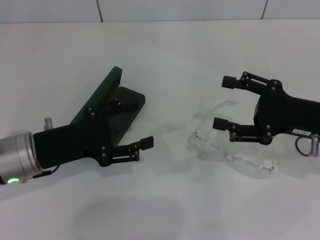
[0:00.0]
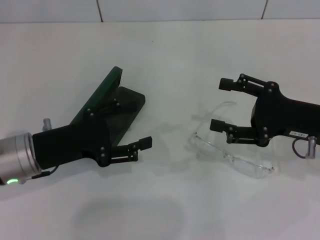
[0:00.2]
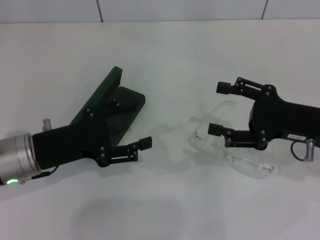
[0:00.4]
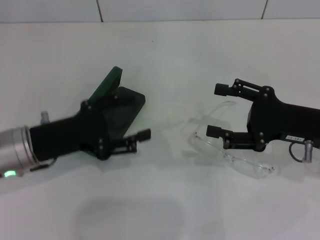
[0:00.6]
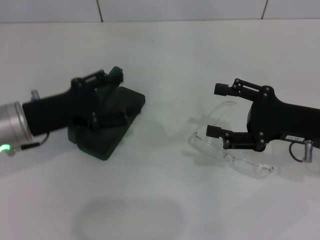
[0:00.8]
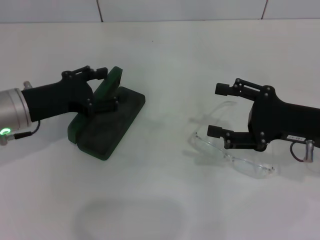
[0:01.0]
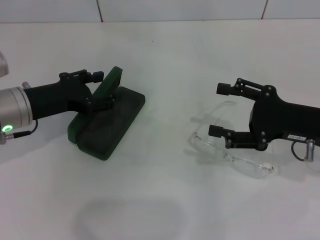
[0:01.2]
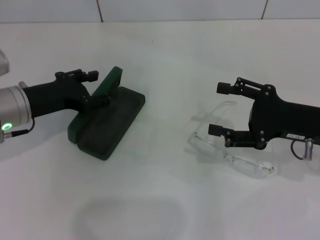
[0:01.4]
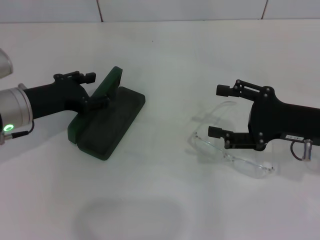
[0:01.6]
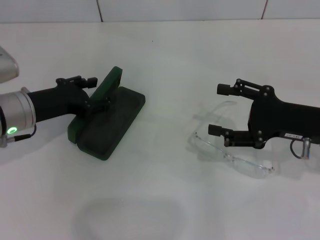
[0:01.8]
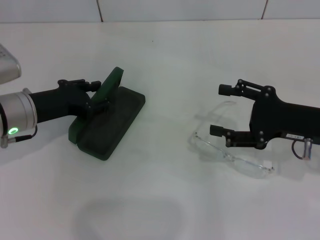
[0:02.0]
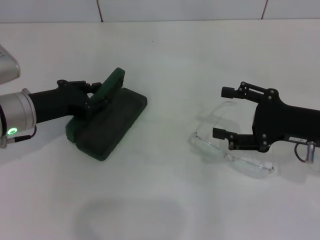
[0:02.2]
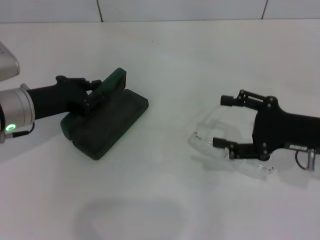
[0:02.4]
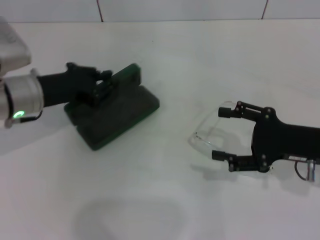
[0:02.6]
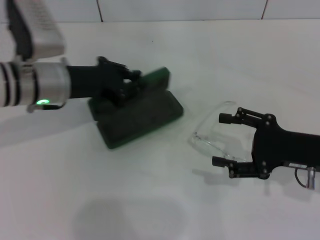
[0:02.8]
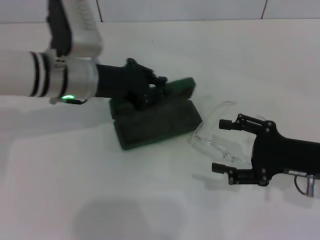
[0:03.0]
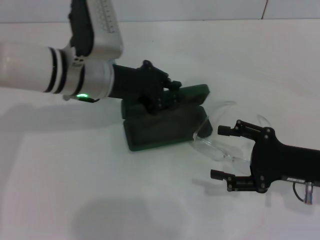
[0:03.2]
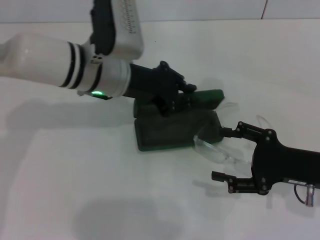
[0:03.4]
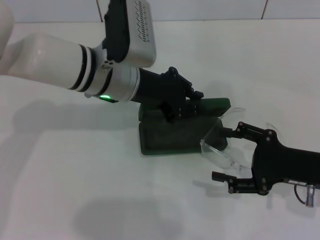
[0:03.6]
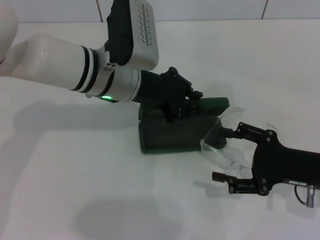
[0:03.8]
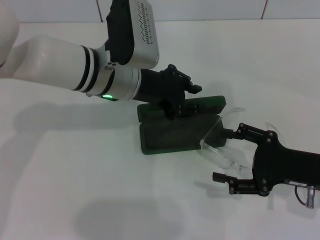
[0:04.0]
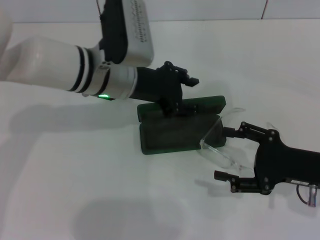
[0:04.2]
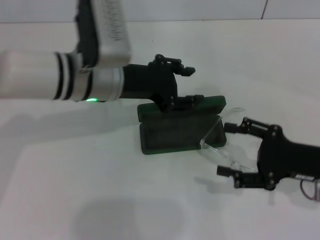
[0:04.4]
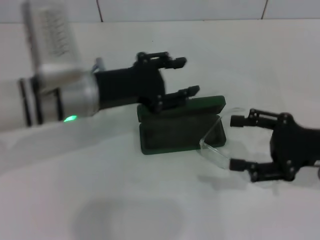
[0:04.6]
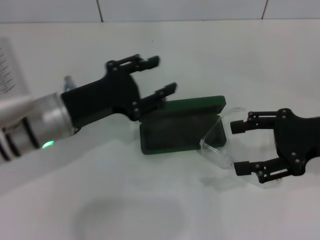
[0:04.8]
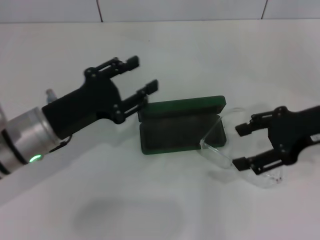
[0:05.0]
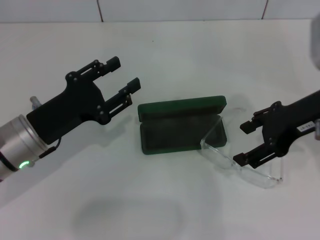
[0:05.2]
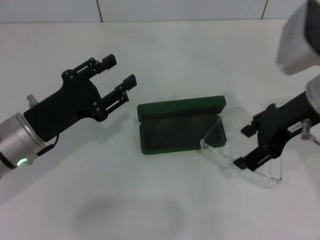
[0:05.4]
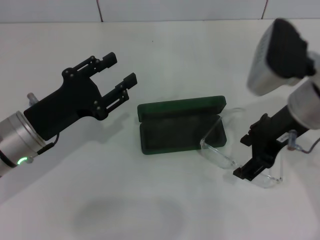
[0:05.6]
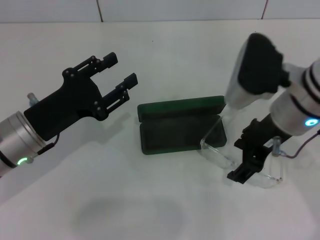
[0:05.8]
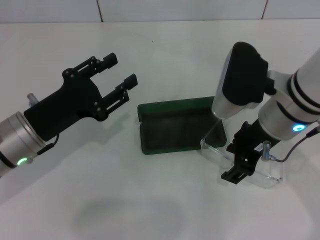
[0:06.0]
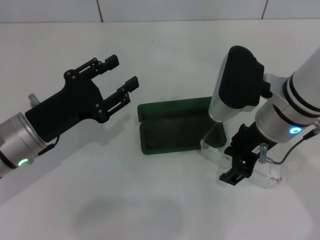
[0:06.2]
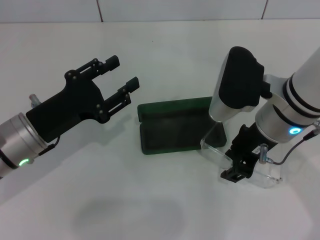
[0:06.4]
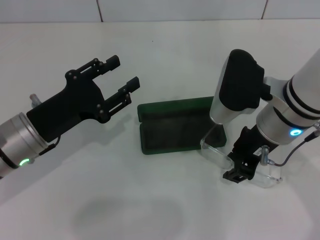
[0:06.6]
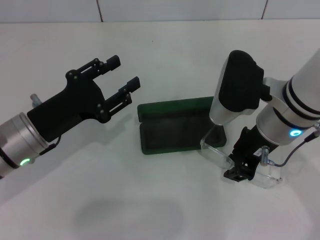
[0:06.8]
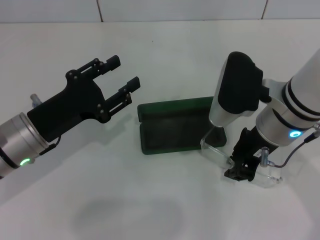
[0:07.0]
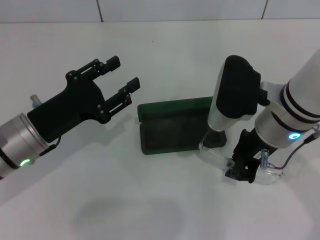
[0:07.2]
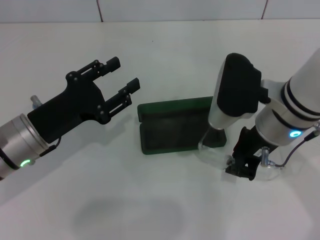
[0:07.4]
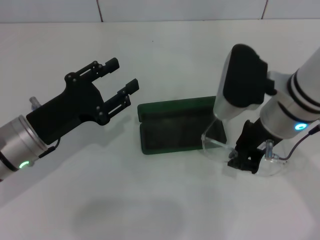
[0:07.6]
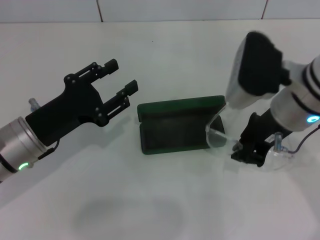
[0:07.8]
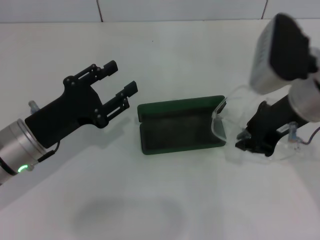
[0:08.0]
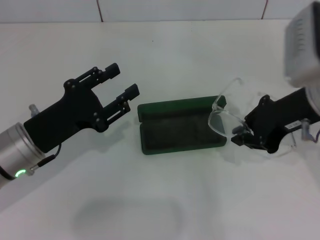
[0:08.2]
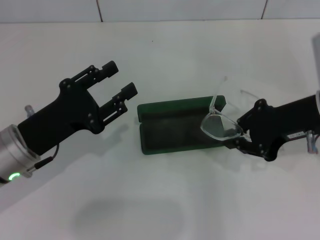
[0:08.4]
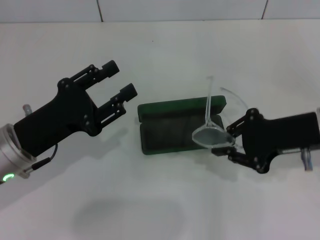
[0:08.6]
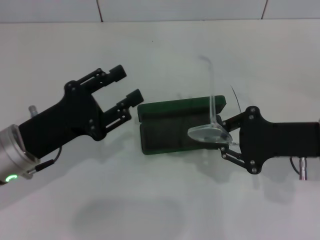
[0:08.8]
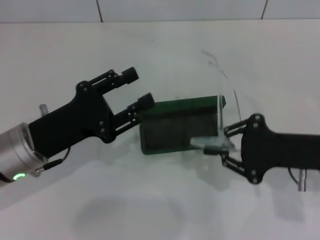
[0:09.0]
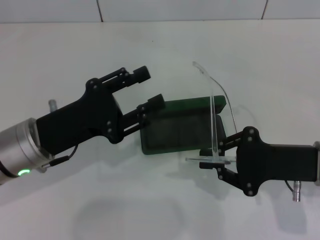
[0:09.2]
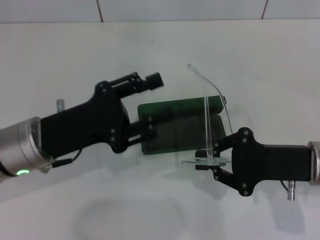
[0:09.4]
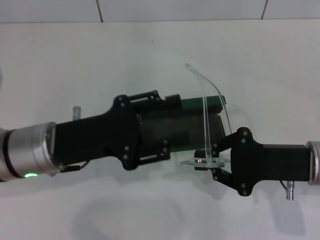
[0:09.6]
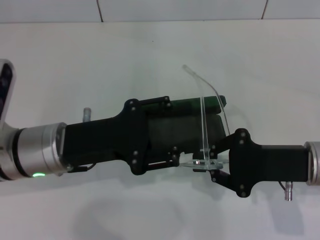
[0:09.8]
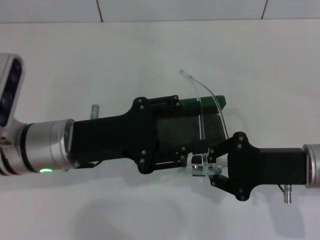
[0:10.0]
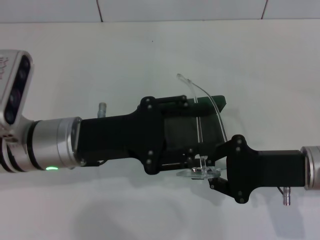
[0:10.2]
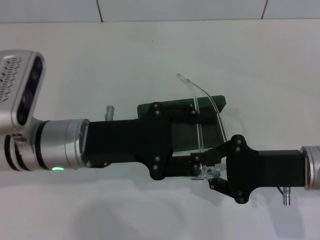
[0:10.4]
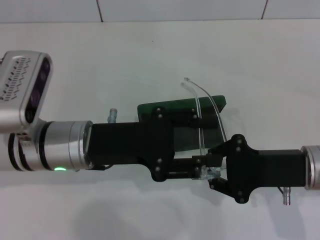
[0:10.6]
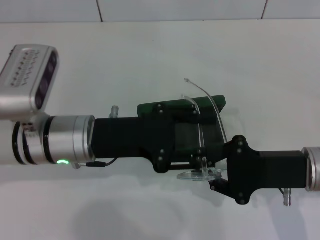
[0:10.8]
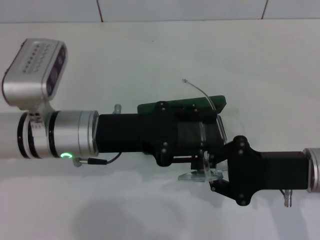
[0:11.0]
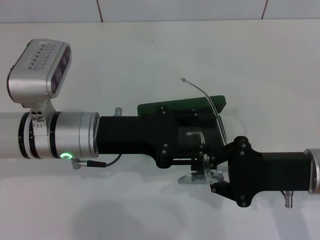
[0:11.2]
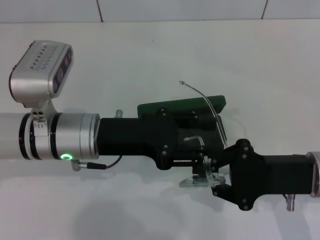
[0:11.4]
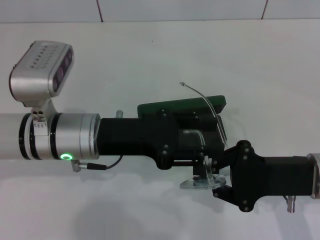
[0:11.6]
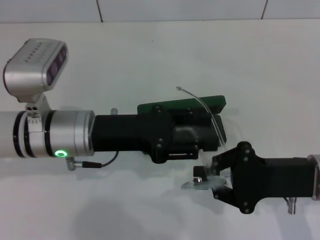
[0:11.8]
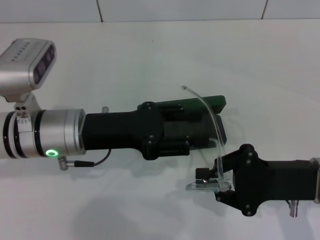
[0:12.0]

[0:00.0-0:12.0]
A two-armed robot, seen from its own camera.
Step, 0:00.0 to 0:01.8: Grab the glasses case with your left hand.
Step, 0:02.0 to 0:03.8: Place the glasses case in the center of the table with your left hand.
Step, 0:04.0 to 0:06.8: Grab the eyeglass frame with your right hand.
0:00.0 to 0:01.6: The left gripper shifts roughly 5 cm forward.
0:01.6 to 0:03.0: The left gripper is displaced to the right by roughly 10 cm, and closes up.
0:03.0 to 0:04.4: The left gripper opens its fingers.
0:04.4 to 0:06.0: The left gripper is displaced to the left, backward and downward by approximately 15 cm, while the right gripper goes some 15 cm to the left, upward and forward.
0:06.0 to 0:07.6: The right gripper closes up.
0:07.6 to 0:09.0: The right gripper goes approximately 15 cm to the right, downward and backward.
0:09.0 to 0:10.4: The left gripper goes some 5 cm to the right.

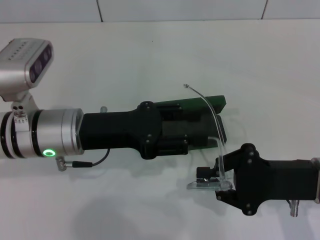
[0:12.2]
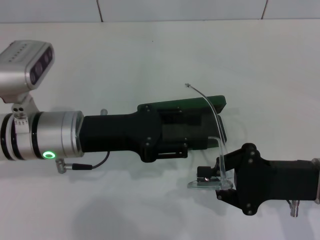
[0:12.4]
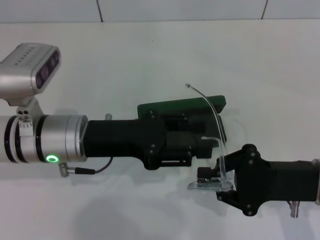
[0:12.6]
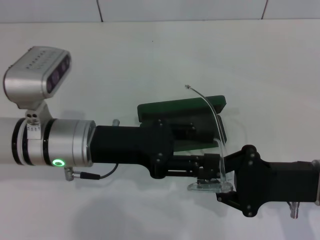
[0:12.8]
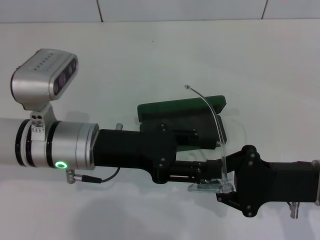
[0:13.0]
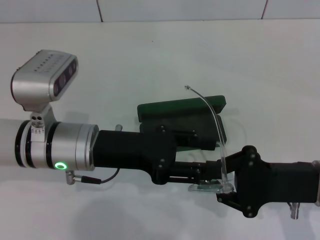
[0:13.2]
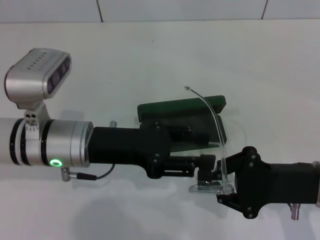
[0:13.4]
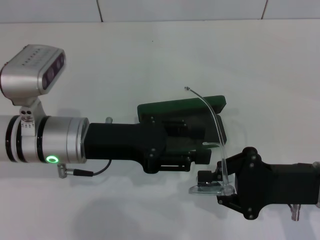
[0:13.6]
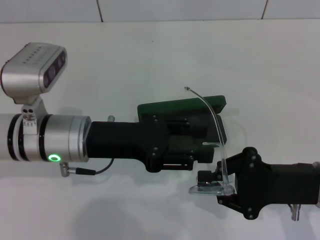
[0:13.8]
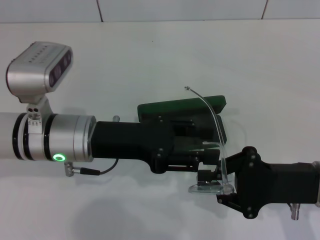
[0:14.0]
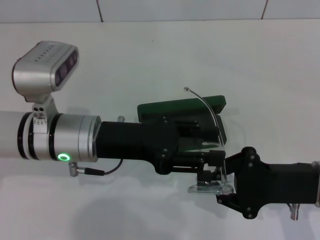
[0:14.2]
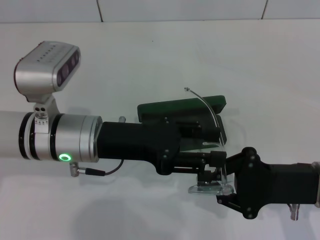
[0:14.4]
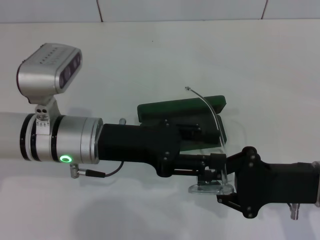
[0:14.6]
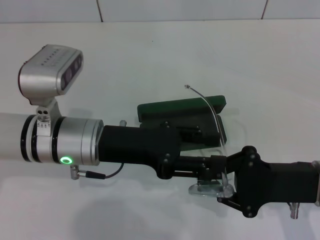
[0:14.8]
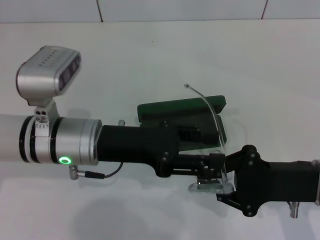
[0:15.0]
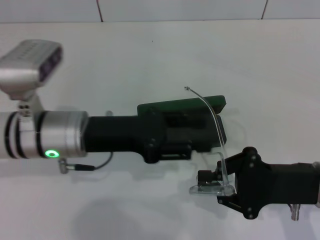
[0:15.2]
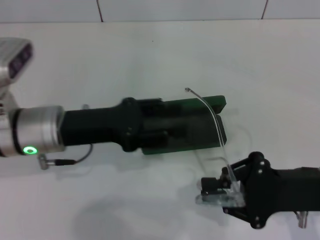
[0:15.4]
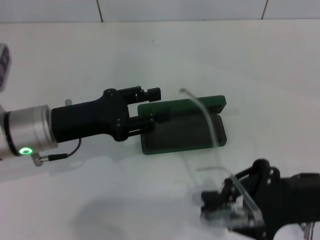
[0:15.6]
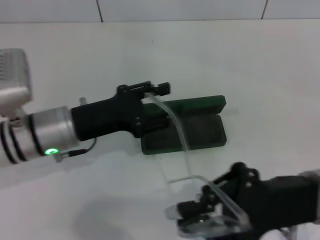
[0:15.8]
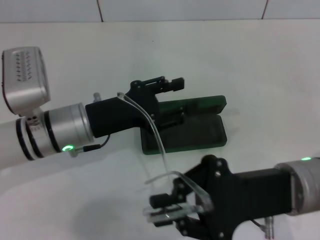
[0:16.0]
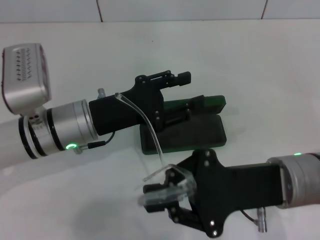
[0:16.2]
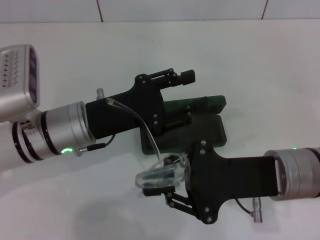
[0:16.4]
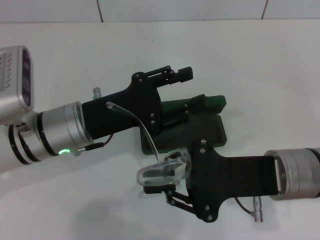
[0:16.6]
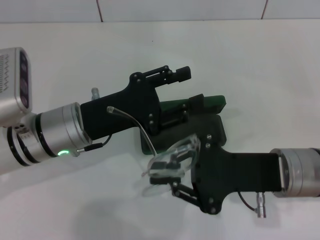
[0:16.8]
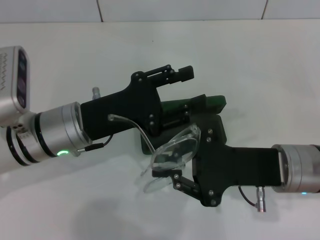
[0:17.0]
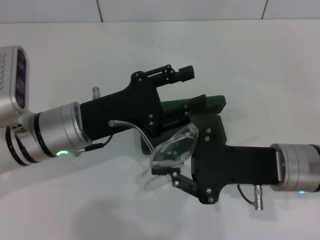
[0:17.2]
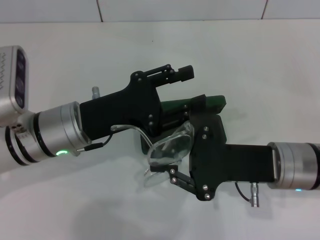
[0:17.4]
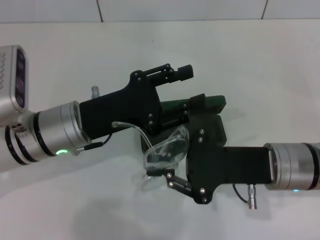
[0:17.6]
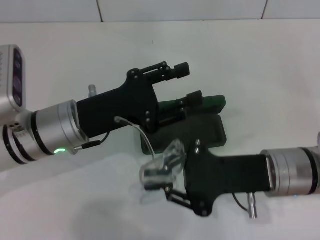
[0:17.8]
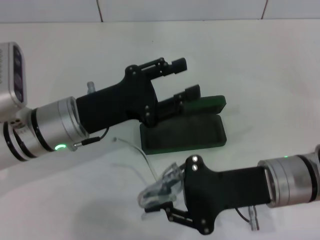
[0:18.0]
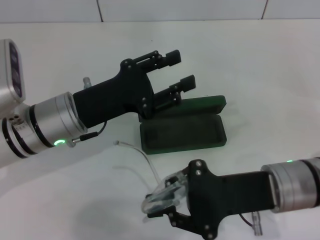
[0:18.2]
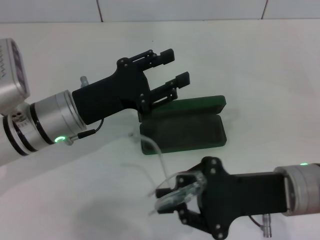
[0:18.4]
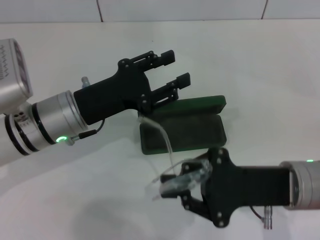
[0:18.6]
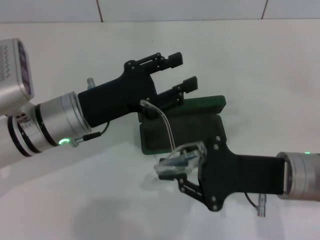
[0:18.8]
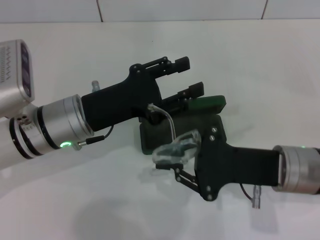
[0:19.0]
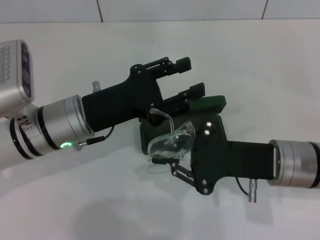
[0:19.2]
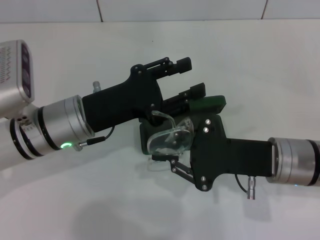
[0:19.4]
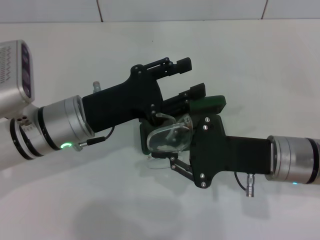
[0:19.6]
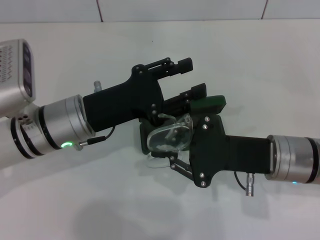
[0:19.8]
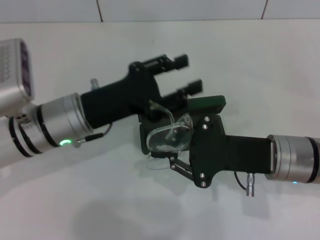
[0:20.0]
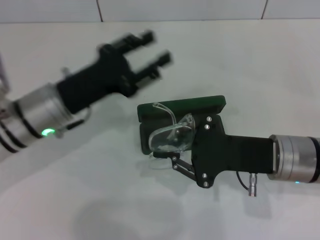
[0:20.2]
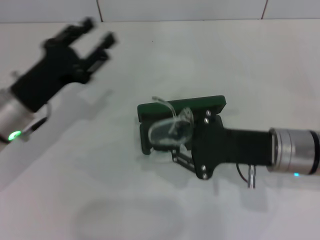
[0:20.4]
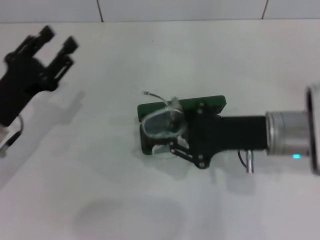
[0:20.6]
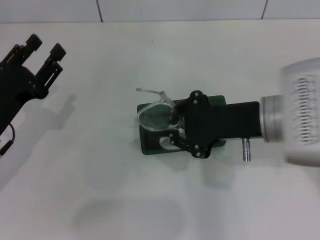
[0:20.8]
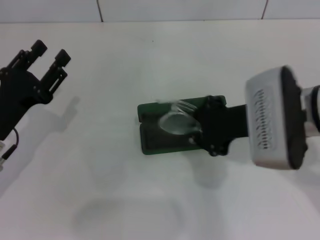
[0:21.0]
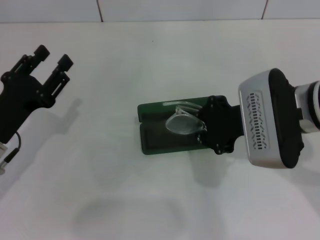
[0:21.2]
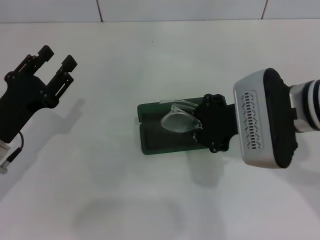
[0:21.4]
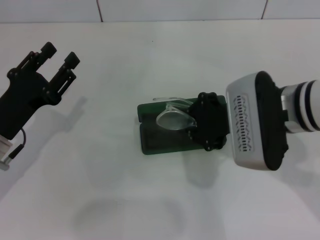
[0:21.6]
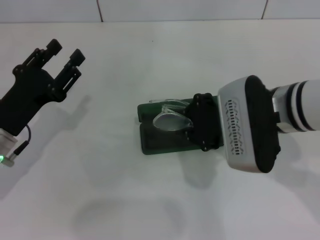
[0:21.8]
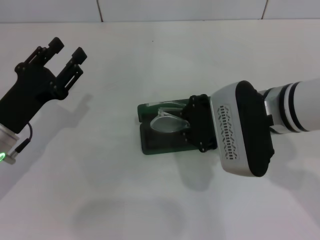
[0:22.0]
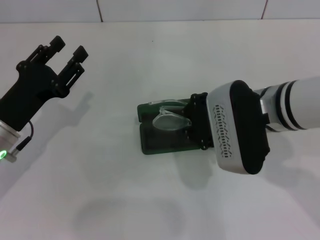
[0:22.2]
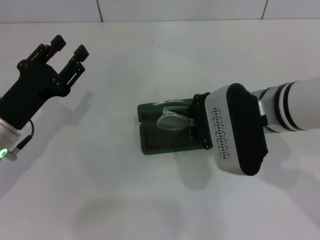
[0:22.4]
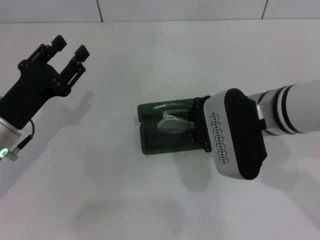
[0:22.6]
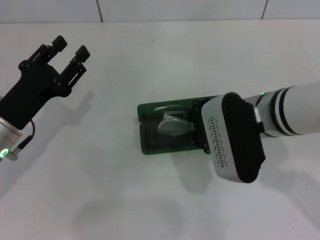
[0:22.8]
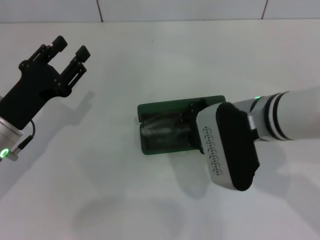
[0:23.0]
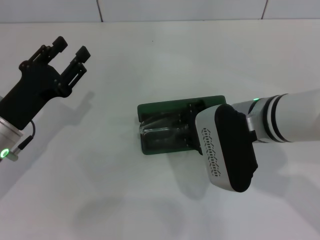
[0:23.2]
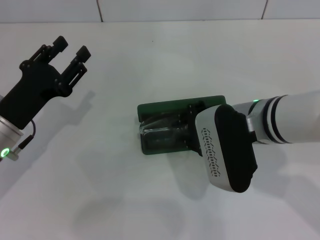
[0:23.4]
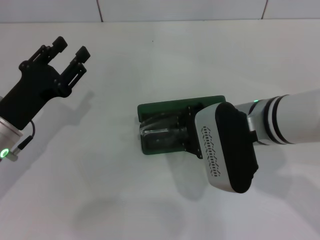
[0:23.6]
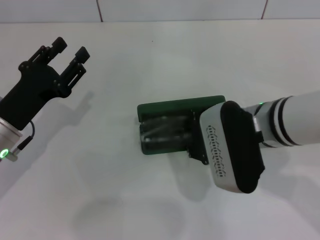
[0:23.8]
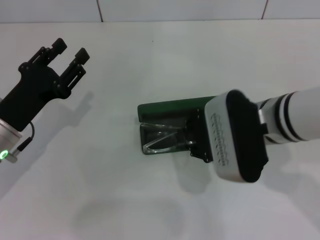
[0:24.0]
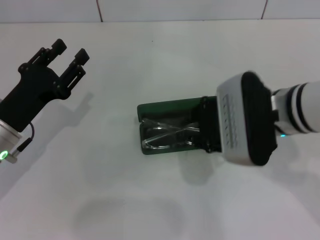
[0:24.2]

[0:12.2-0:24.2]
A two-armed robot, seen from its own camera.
Step, 0:12.2 to 0:19.8: Fold the frame with your left hand.
0:12.2 to 0:15.2: There are only small adjustments of the grippers.
0:15.2 to 0:16.6: The right gripper goes about 5 cm to the left.
0:19.8 to 0:21.2: The right gripper goes some 5 cm upward; the left gripper shifts about 10 cm to the left.
0:21.2 to 0:24.2: There are only small adjustments of the grippers.
